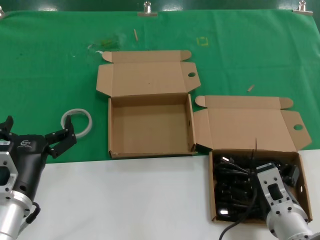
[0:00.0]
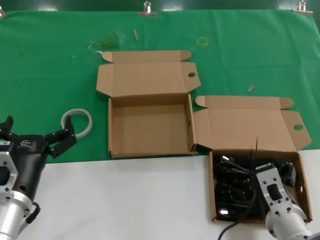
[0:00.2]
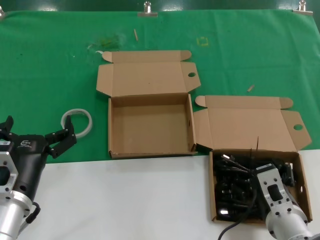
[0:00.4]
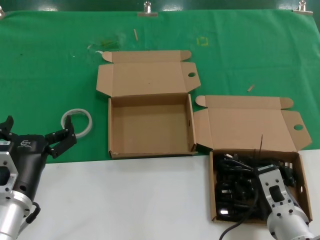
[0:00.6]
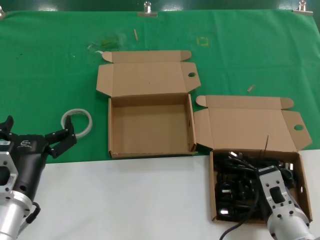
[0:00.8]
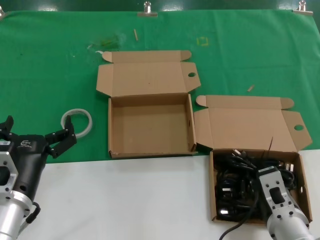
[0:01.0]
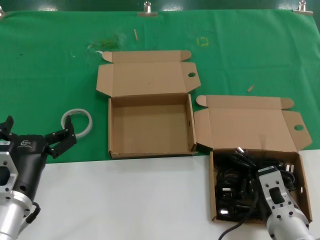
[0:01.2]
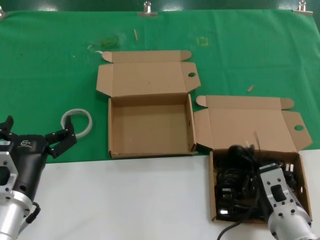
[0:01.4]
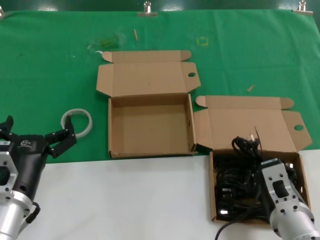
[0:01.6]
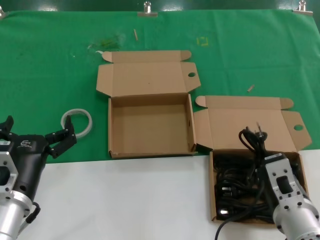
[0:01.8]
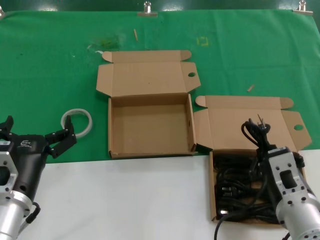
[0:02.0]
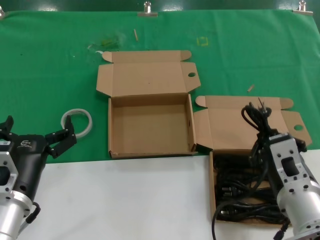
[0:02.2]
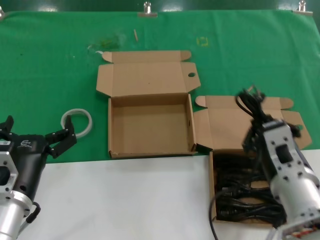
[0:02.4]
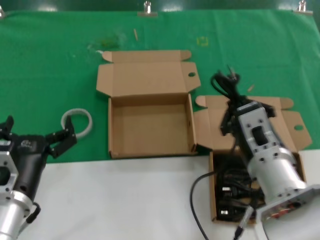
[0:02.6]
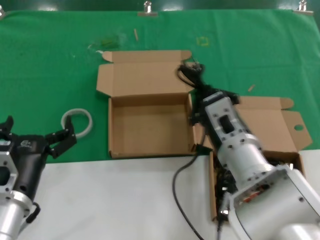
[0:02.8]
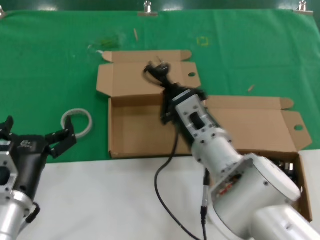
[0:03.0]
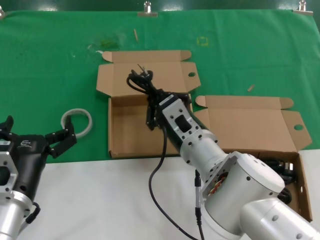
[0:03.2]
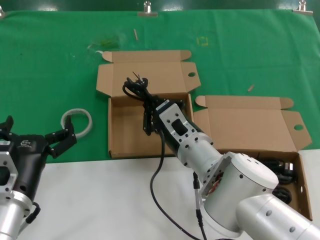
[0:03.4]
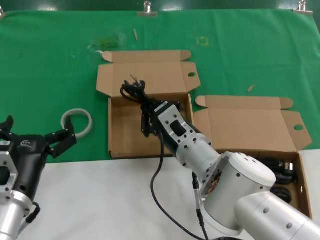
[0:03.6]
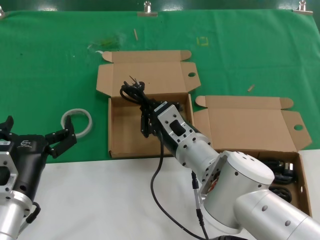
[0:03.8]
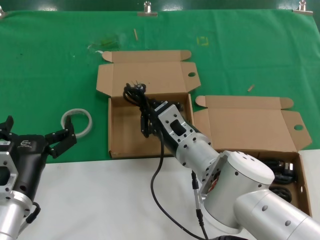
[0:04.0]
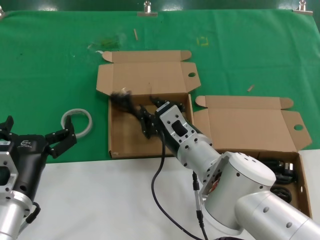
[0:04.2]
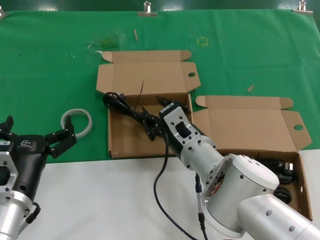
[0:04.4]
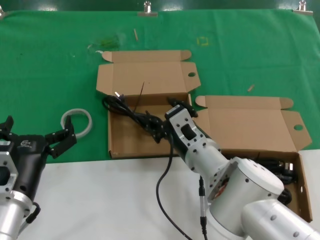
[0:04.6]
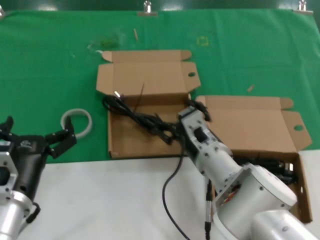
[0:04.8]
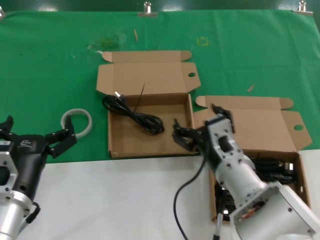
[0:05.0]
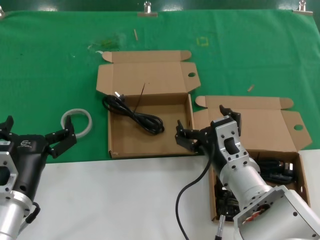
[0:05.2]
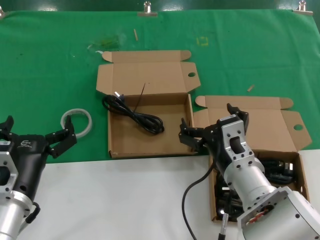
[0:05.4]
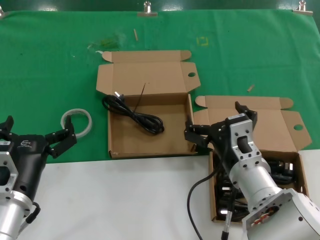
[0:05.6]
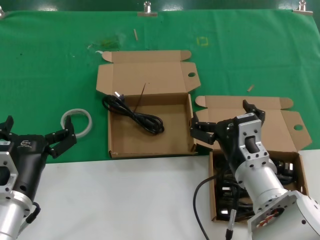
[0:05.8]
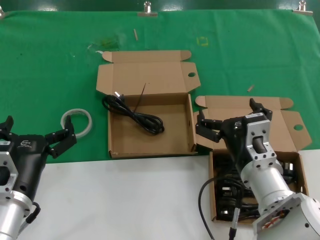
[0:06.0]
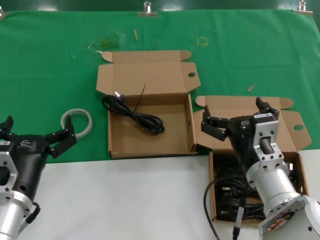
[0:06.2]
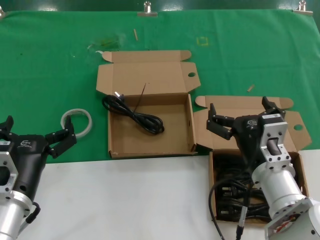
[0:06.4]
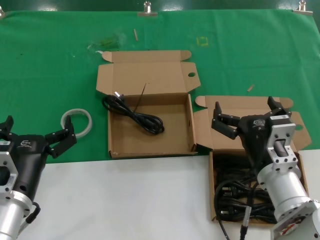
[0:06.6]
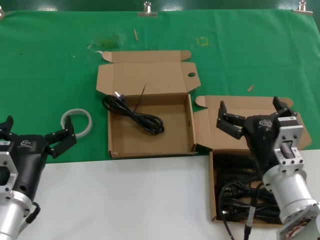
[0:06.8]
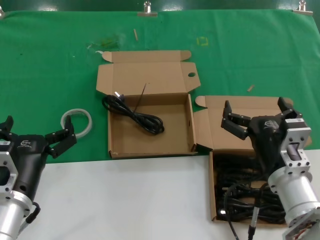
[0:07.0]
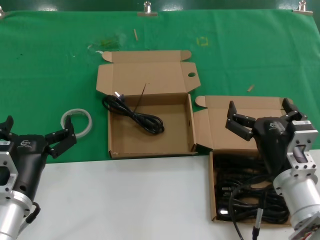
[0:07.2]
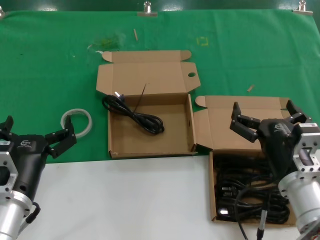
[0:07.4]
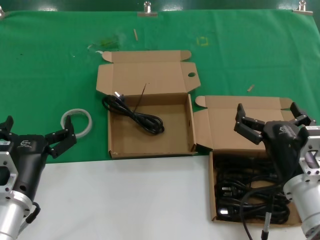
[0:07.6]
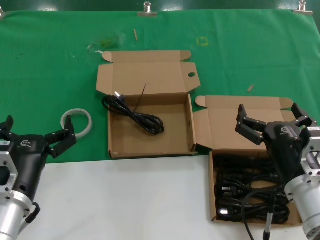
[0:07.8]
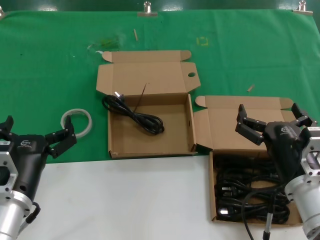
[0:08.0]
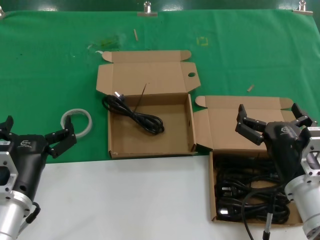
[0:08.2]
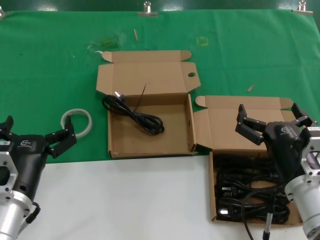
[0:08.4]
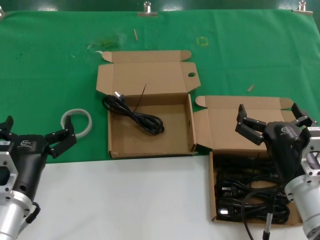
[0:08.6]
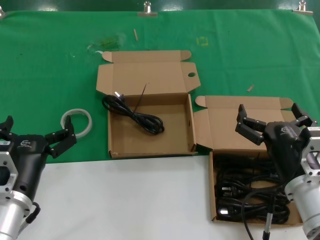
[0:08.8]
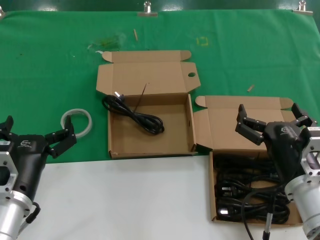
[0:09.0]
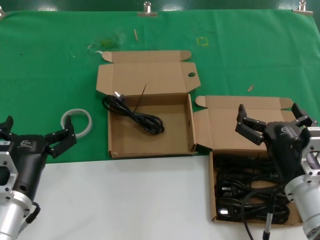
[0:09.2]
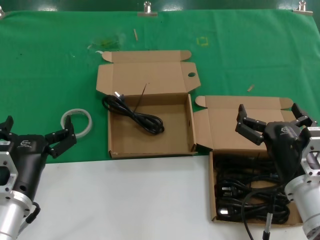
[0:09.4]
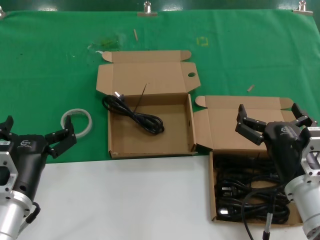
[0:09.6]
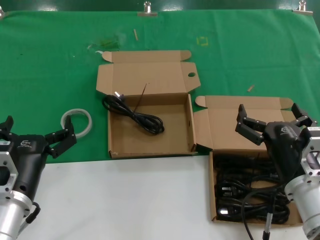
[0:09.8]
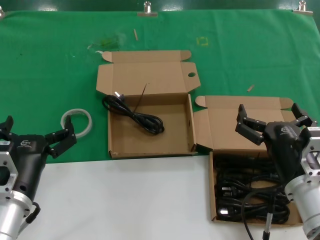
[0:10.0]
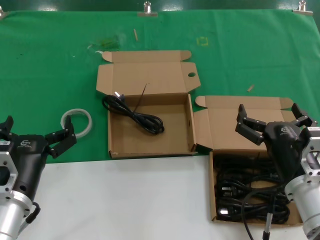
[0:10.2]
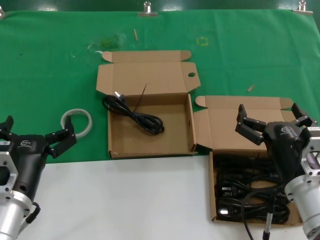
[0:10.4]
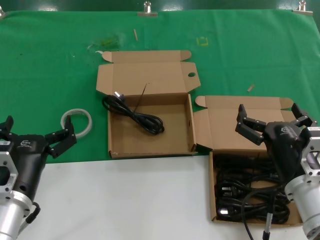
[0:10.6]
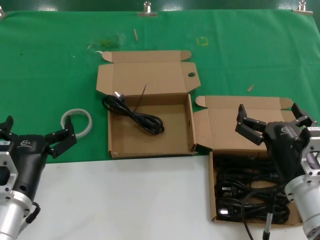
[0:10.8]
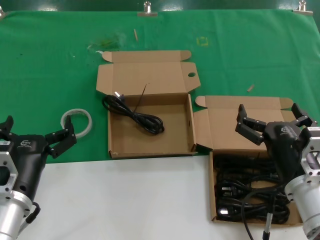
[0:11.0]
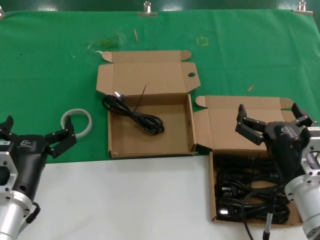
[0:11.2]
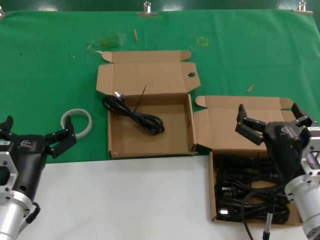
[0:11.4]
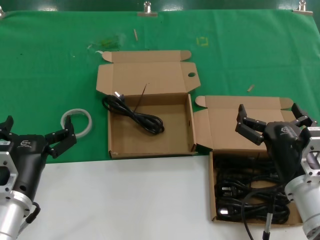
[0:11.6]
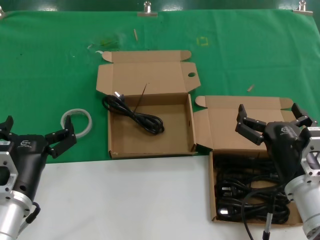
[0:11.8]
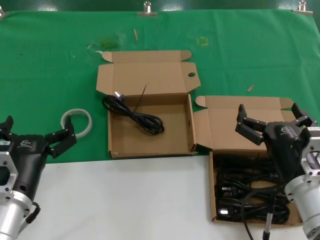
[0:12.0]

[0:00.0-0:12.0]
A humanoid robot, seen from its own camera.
Task of the whole recording: take the parts from the box containing them and put them into an empty box.
Step, 0:01.0 to 0:04.2: Place the data cable in the another box.
0:00.0 to 0:01.6: The hands make only small movements.
0:01.6 to 0:03.0: The right hand goes about 15 cm to the left, forward and upward.
0:03.0 to 0:04.4: The right hand ends up about 5 cm from where it was.
0:04.4 to 0:06.0: The right hand travels to the right and backward by some 10 cm.
0:06.0 to 0:07.6: The right hand travels to the right by roughly 5 cm.
0:07.6 to 0:12.0: Both hands stay put.

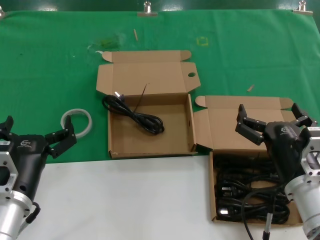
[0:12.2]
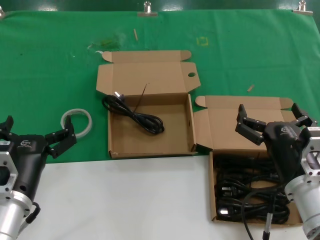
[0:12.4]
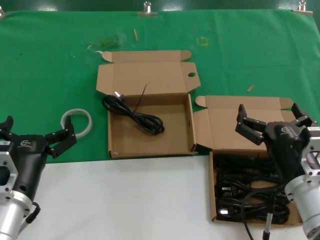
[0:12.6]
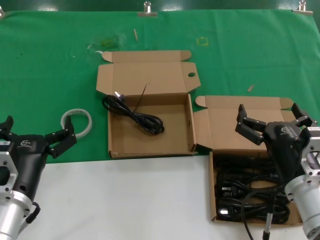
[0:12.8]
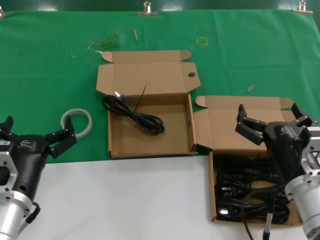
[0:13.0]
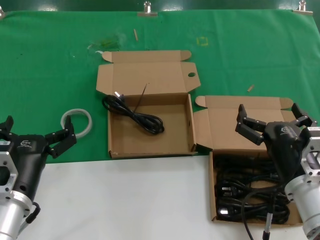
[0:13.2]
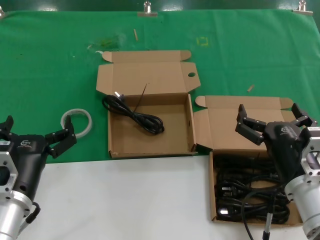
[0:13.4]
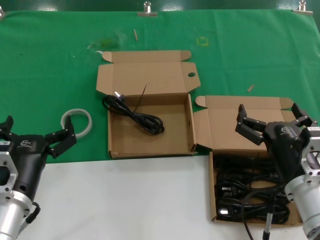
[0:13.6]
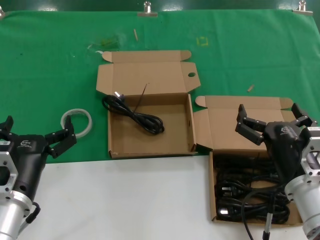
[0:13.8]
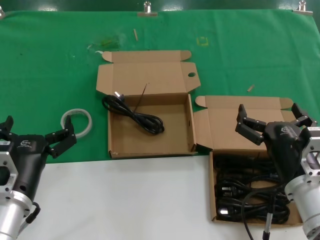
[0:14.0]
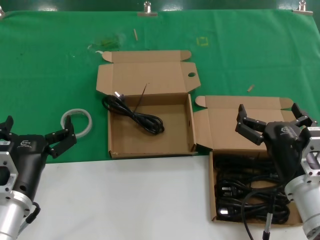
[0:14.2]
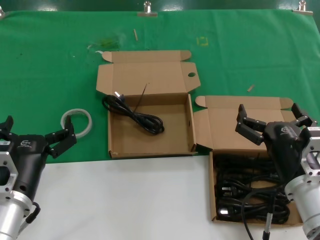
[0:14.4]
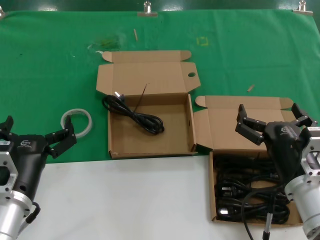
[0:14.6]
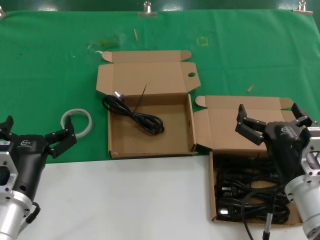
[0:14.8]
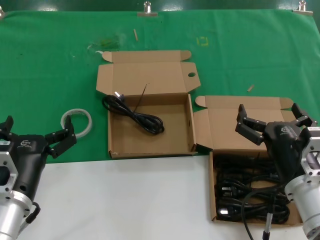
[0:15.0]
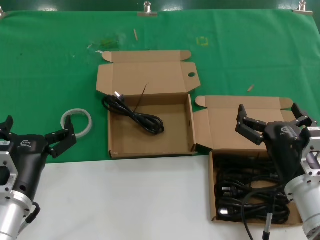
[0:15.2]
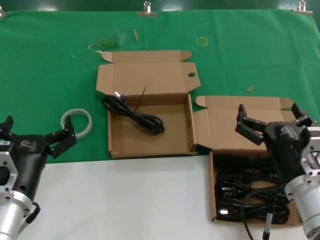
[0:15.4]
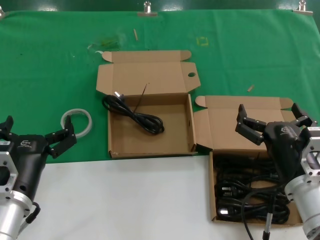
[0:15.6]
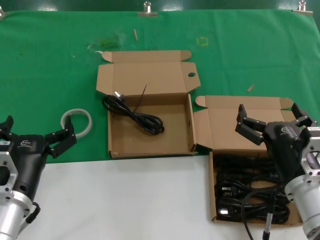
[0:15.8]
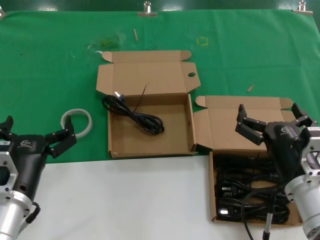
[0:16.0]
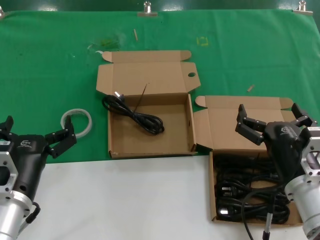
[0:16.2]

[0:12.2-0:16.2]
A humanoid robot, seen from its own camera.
Task of the whole recording: take the parts from the box containing them and put them into an empty box.
0:12.2 to 0:16.2: Neither hand changes place.
